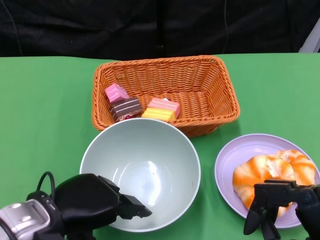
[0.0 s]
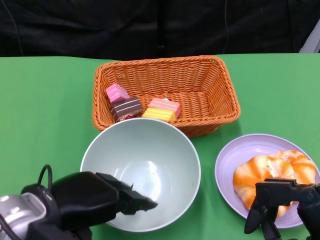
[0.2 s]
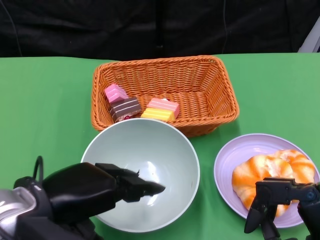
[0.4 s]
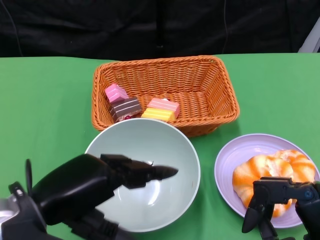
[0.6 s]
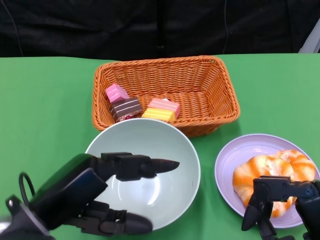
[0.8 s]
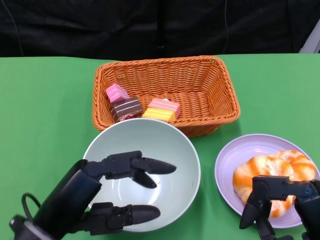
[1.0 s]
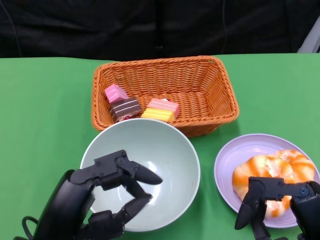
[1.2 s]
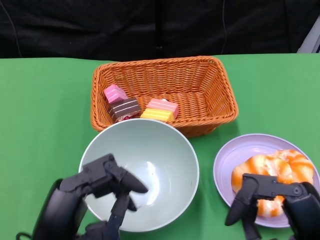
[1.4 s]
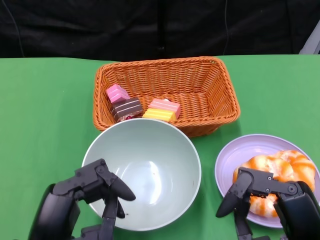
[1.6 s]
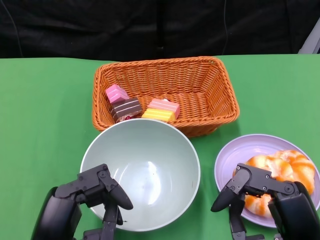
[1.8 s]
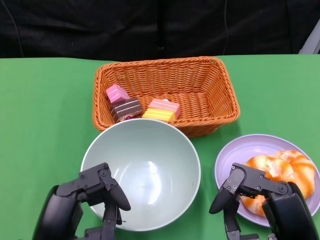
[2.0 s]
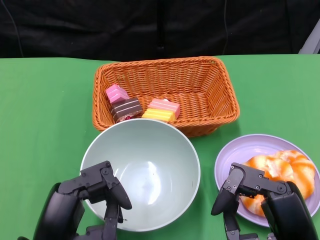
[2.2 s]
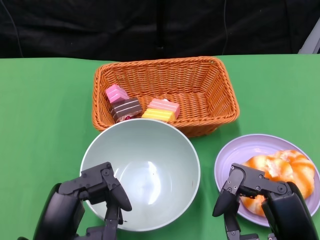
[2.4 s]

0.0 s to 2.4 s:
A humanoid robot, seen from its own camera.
0.0 to 1.2 s: The left hand goes approximately 5 cm backward.
1.2 to 2.4 s: The hands make only small movements.

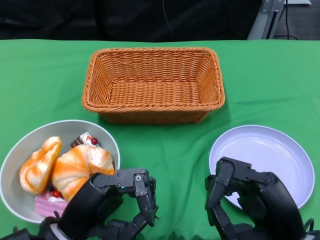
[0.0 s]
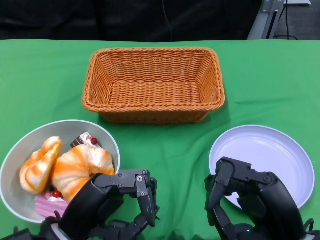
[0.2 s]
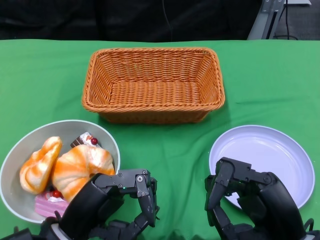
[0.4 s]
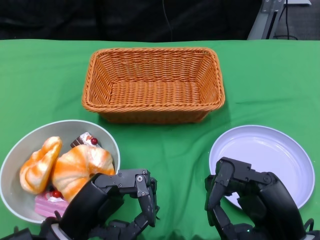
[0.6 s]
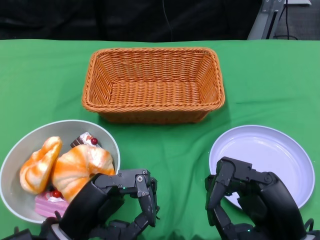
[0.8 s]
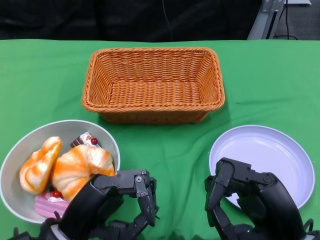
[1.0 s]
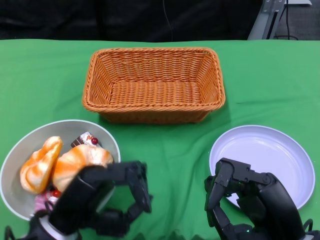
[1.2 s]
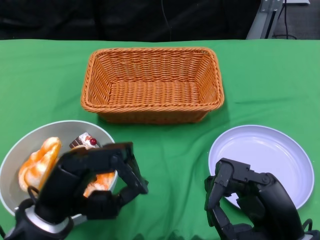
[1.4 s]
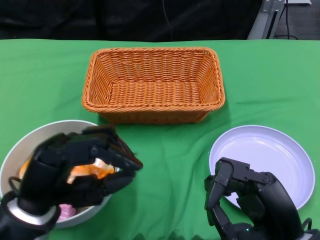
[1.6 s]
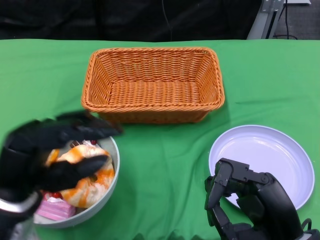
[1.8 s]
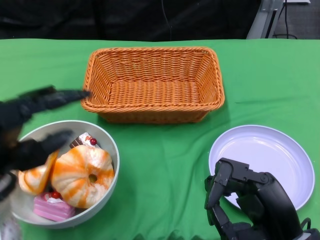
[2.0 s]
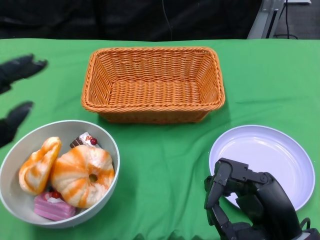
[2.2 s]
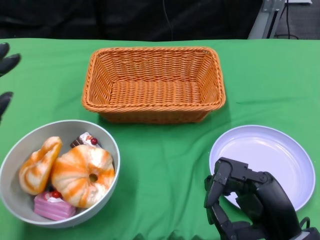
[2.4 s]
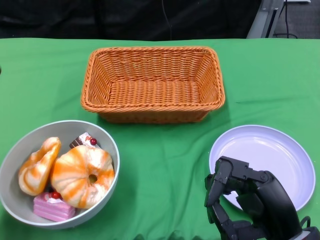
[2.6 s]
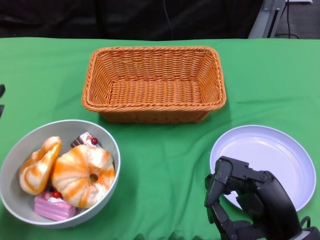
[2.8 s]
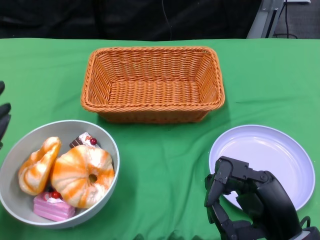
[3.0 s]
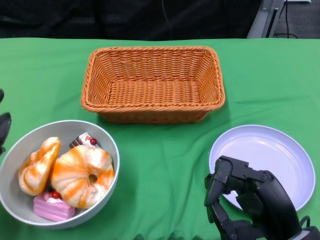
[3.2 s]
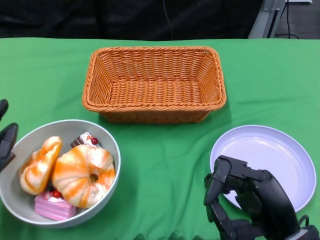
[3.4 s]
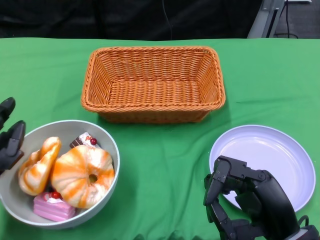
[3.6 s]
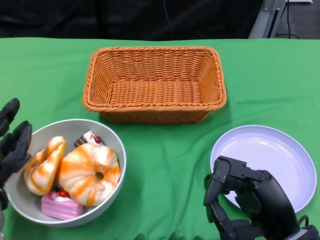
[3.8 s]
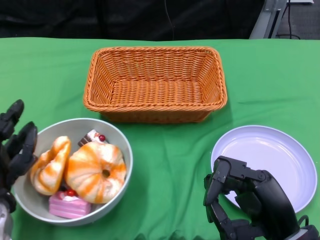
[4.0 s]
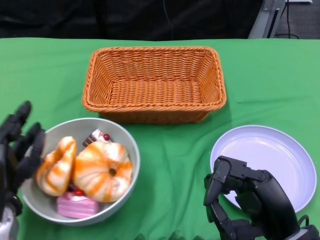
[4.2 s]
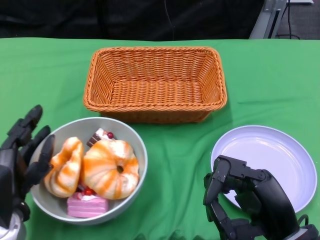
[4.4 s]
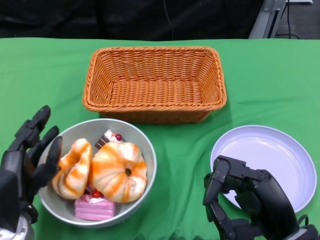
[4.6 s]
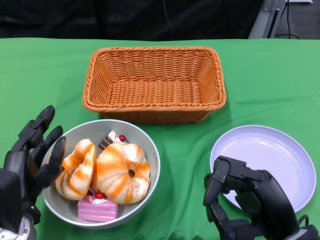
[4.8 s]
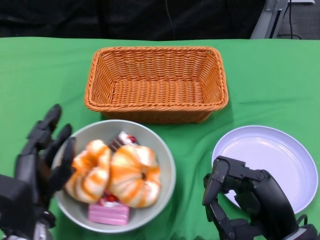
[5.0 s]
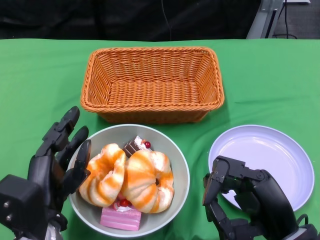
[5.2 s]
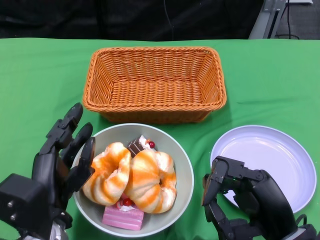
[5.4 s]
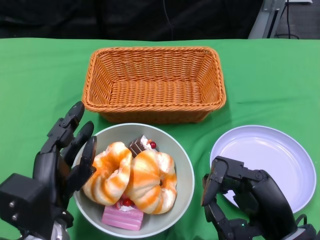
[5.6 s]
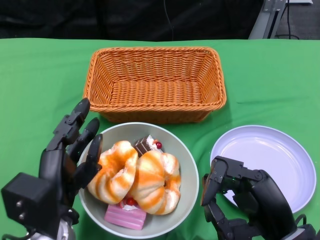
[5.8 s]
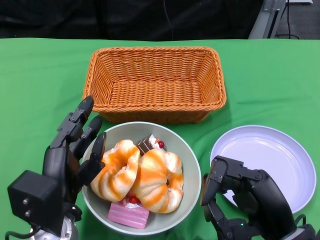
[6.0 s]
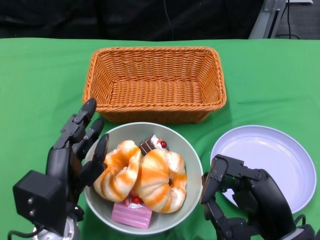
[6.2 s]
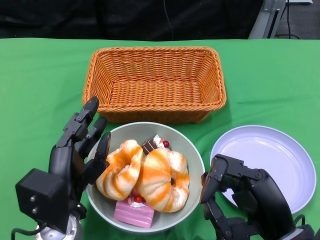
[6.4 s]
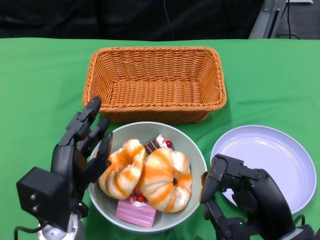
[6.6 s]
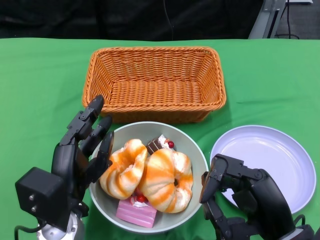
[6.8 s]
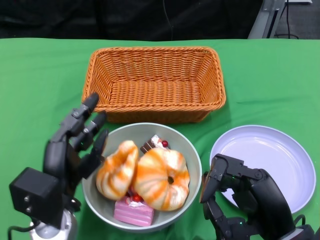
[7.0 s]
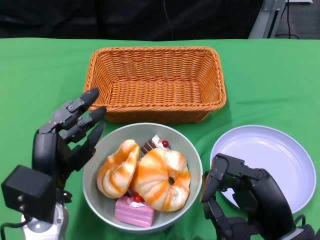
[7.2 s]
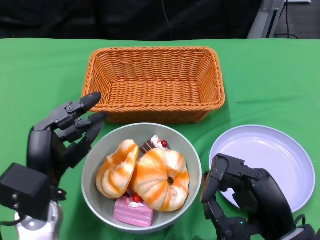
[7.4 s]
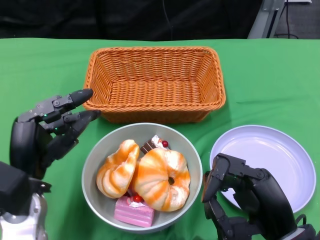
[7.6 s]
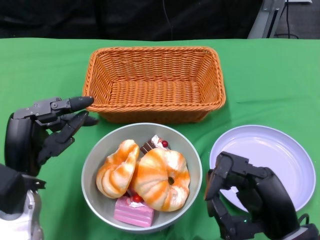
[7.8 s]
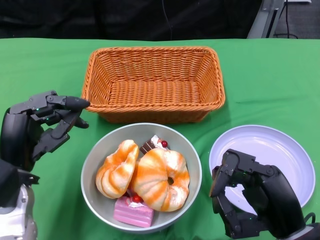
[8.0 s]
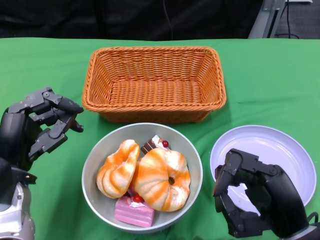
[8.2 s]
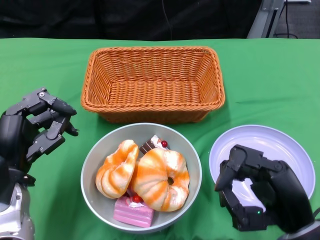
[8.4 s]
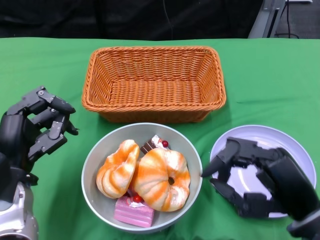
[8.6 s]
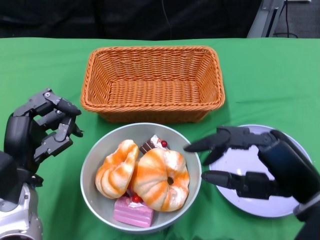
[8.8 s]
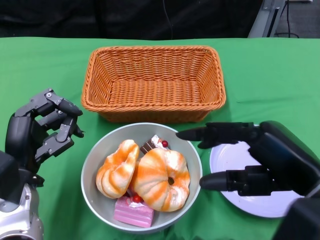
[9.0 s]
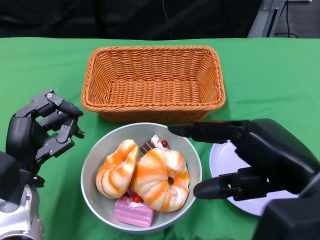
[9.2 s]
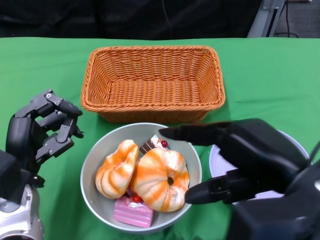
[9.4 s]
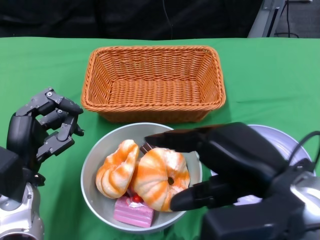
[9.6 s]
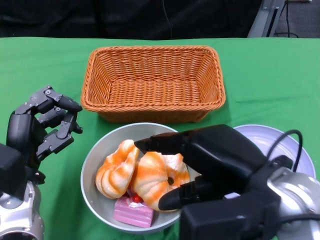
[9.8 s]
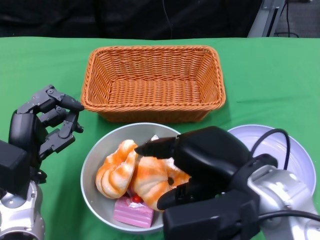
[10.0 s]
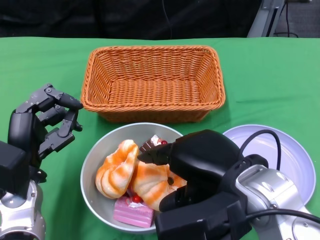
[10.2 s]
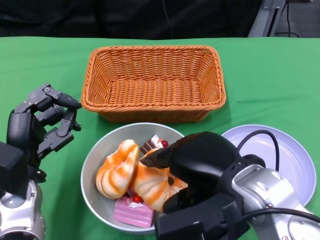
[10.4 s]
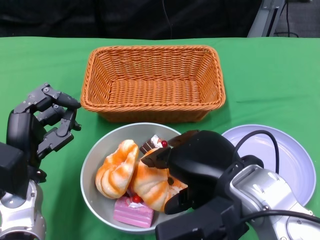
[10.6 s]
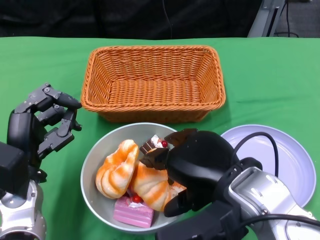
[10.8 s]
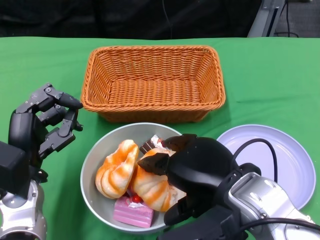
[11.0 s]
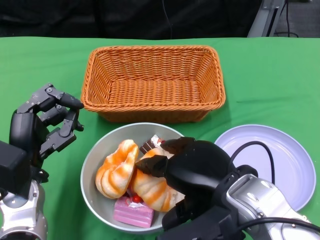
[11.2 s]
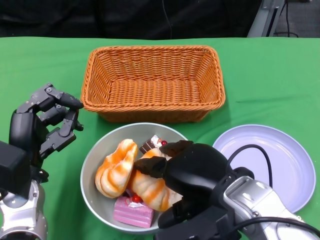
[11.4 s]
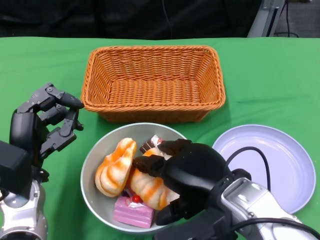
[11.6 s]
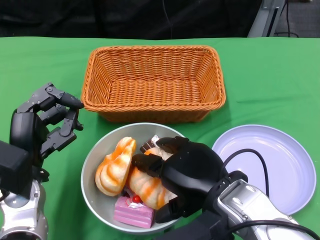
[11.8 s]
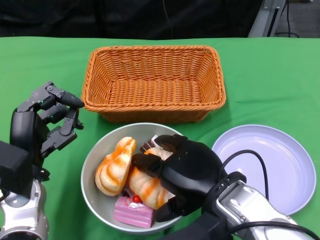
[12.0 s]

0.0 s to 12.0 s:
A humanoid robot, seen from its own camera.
Step, 0.0 to 7.2 s: Push the bowl to the center of the table using the left gripper.
1.6 to 3.0 s: The left hand moves to the left, roughly 10 cm.
3.0 to 4.4 s: The left hand is displaced to the right by some 5 cm.
4.4 to 6.0 s: The left hand is displaced to the right by some 5 cm.
6.0 to 7.6 s: The left hand shifts by roughly 5 cm.
7.6 to 9.0 s: The right hand goes about 10 cm upward.
9.0 to 10.4 s: The right hand is displaced to the left by approximately 10 cm.
10.4 to 12.0 s: The right hand is displaced downward by approximately 5 cm.

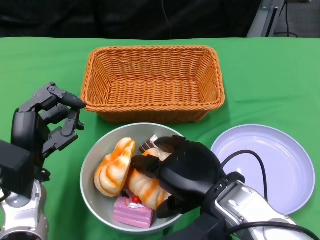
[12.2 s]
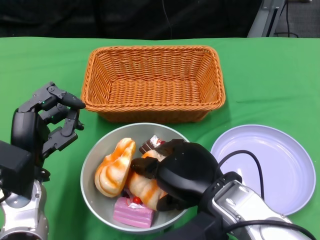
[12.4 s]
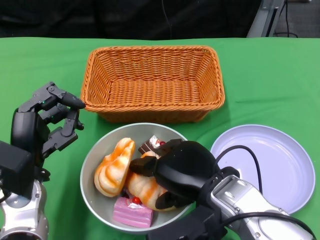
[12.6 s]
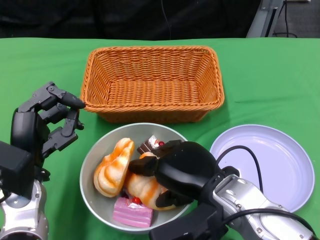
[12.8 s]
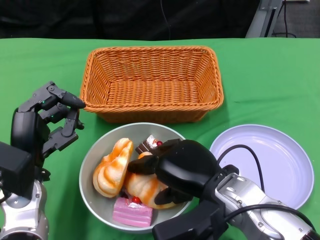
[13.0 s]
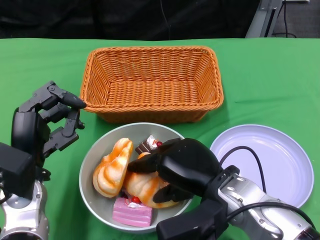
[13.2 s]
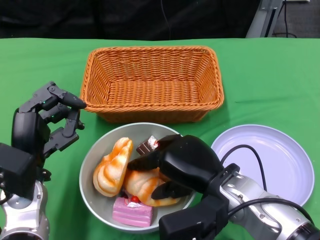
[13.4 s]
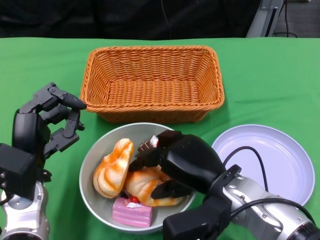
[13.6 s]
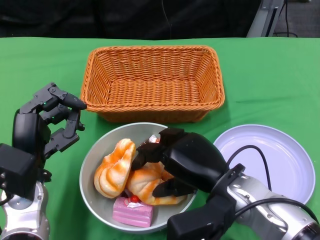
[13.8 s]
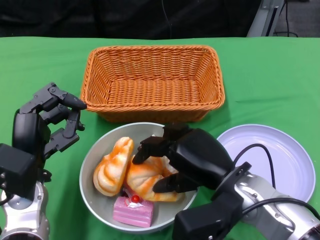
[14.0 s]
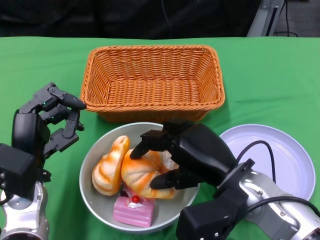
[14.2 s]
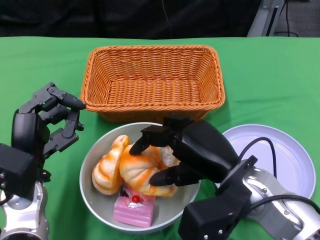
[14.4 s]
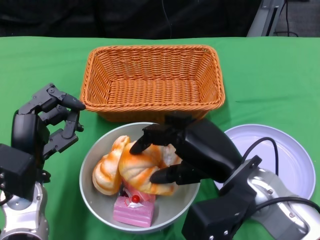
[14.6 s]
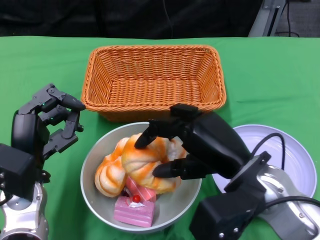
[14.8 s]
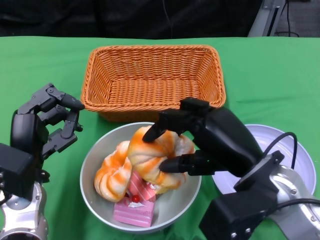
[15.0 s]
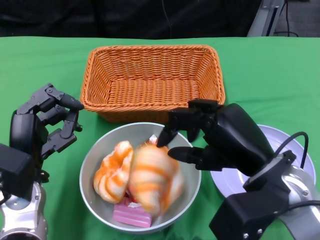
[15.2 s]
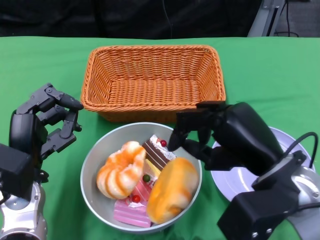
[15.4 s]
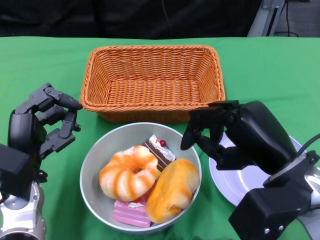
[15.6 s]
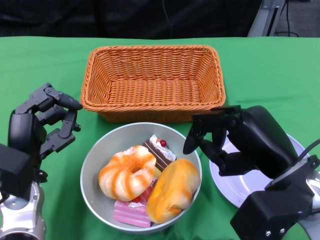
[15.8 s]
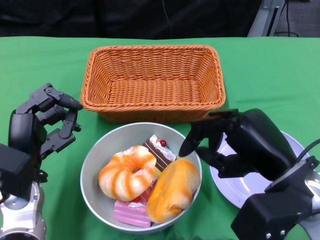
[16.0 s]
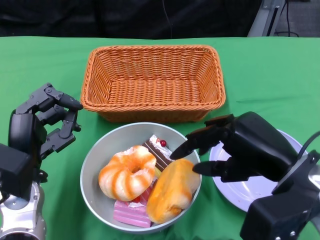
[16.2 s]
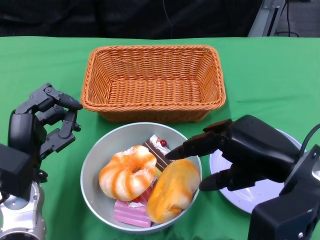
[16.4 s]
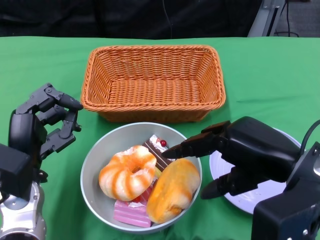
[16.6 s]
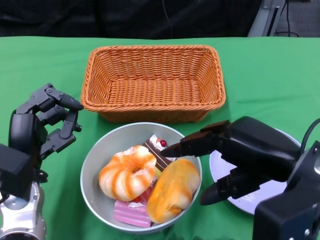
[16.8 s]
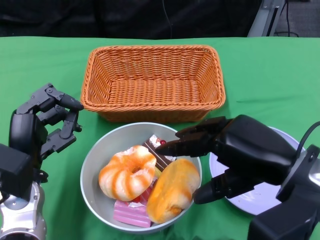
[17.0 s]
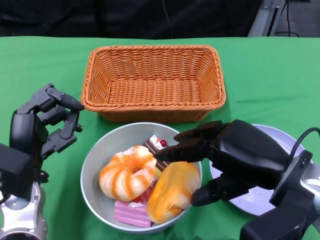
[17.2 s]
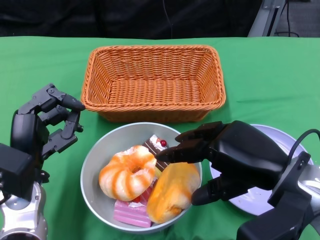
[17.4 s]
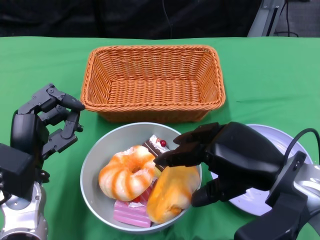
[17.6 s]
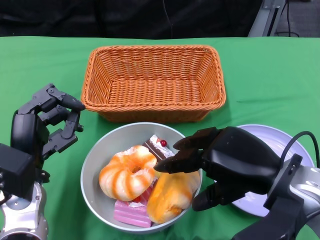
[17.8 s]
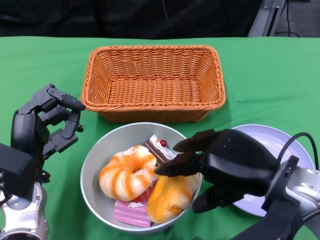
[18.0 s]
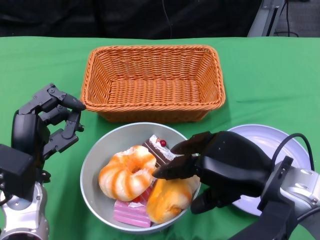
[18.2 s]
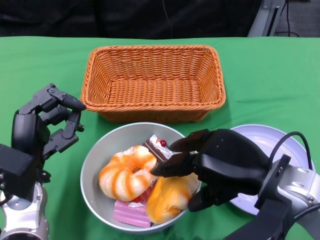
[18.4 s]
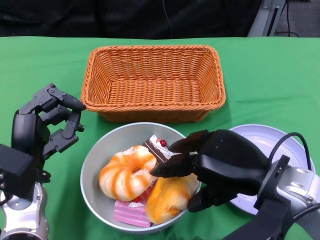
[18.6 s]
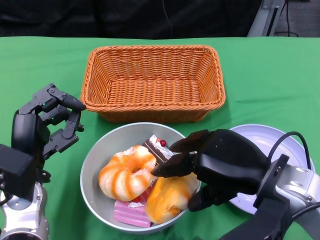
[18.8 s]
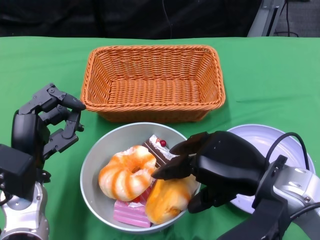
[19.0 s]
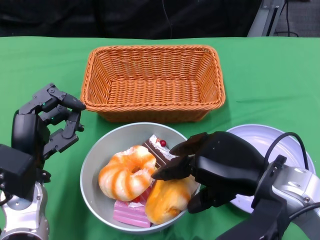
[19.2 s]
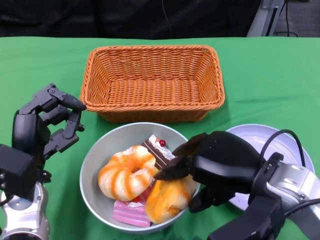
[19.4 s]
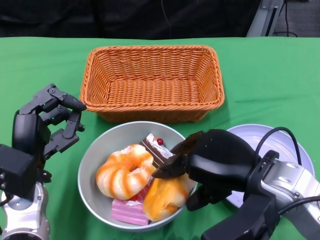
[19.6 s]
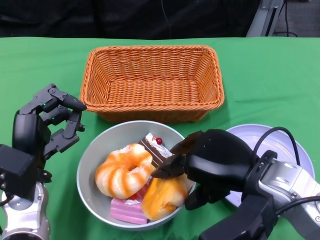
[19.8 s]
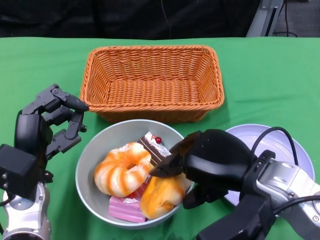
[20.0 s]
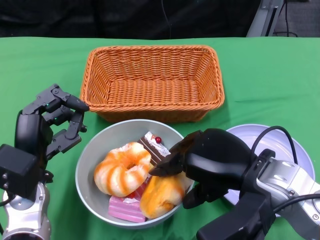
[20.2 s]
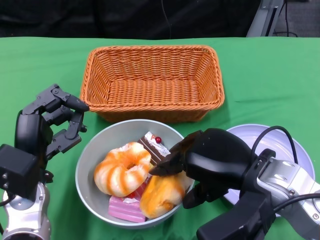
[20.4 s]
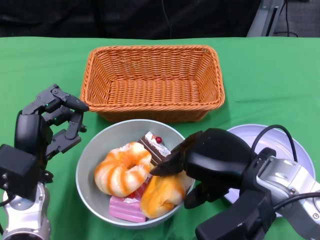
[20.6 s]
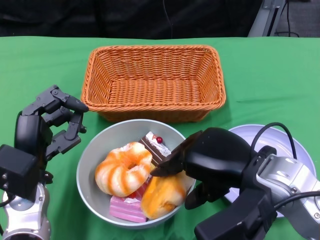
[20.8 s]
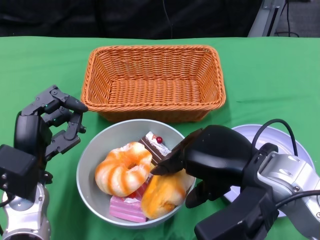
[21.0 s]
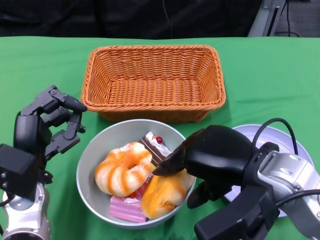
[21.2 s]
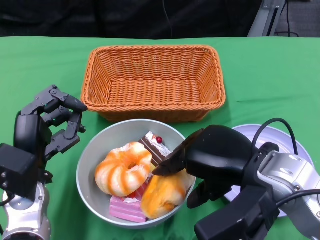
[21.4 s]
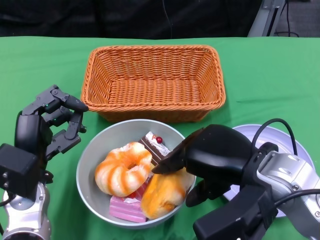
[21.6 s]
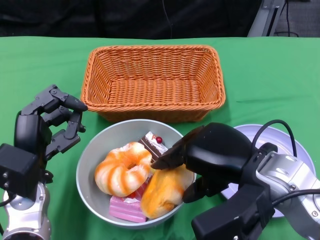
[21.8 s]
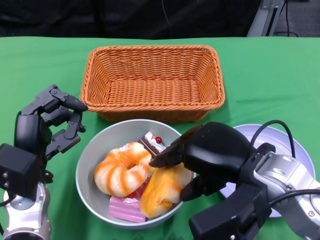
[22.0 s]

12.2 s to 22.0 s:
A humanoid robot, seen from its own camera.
13.6 to 15.0 s: The right hand moves upward, roughly 5 cm.
15.0 to 16.4 s: The right hand moves some 5 cm.
16.4 to 19.2 s: The hands stay close to where they were, moving slightly.
20.6 to 22.0 s: There are only small adjustments of the hands.
